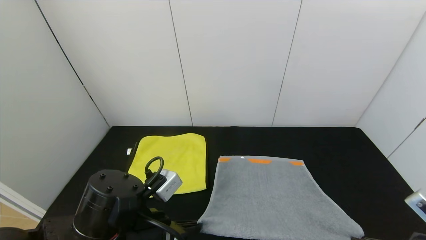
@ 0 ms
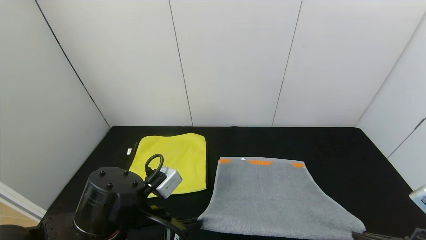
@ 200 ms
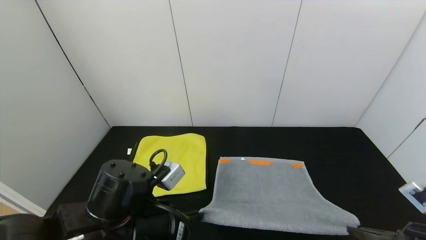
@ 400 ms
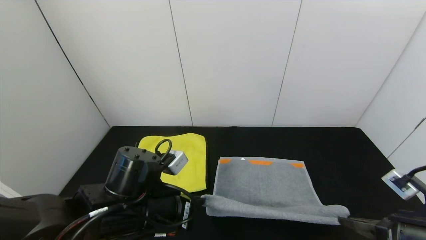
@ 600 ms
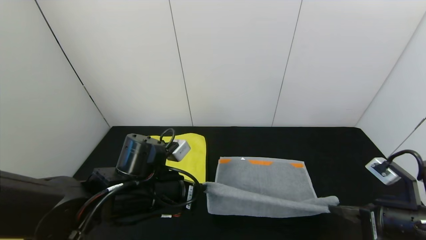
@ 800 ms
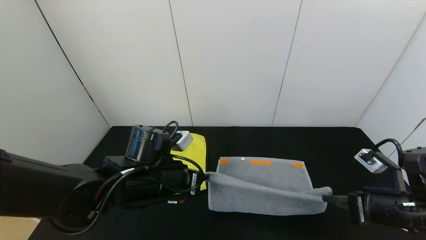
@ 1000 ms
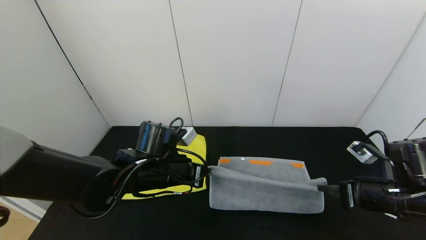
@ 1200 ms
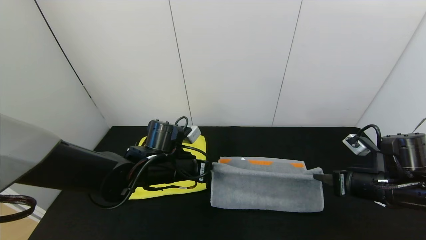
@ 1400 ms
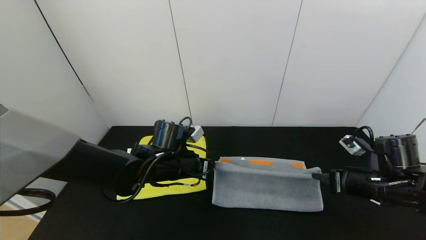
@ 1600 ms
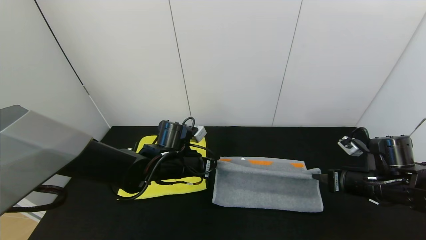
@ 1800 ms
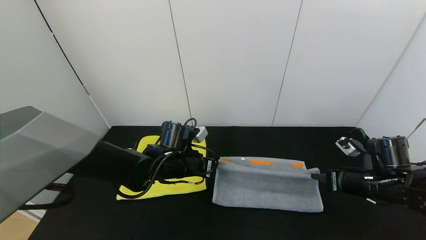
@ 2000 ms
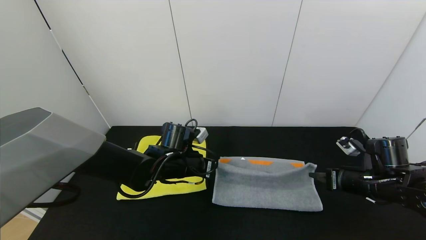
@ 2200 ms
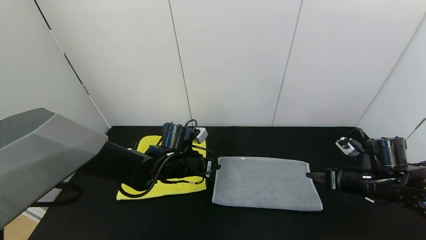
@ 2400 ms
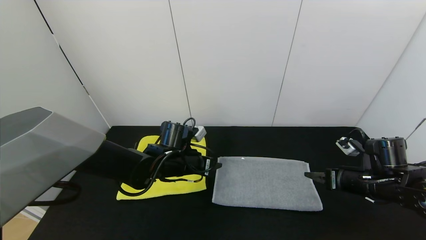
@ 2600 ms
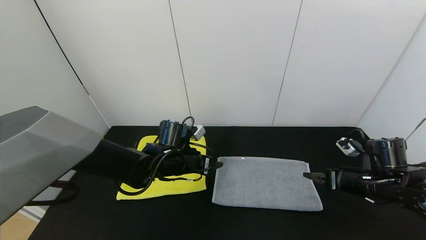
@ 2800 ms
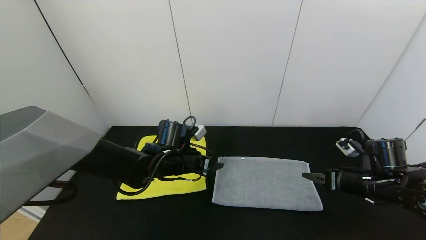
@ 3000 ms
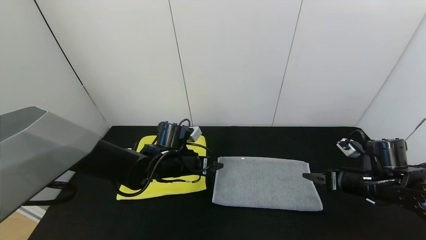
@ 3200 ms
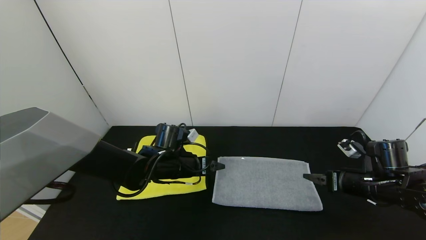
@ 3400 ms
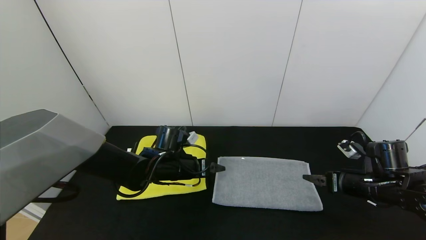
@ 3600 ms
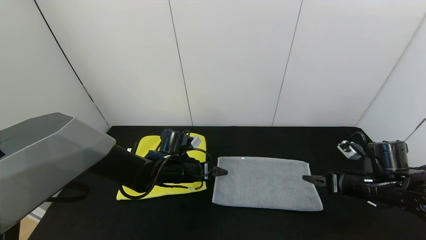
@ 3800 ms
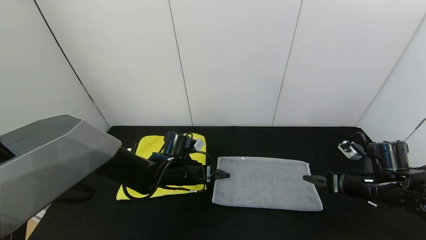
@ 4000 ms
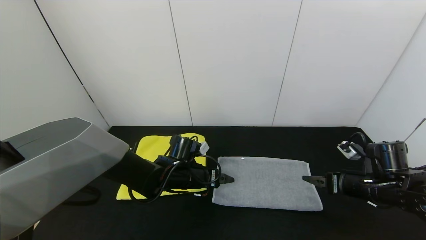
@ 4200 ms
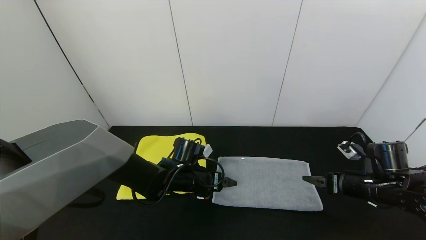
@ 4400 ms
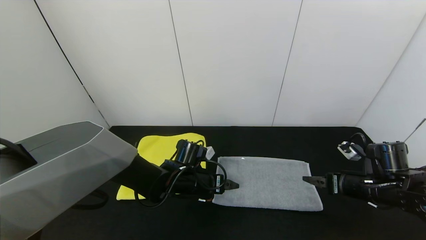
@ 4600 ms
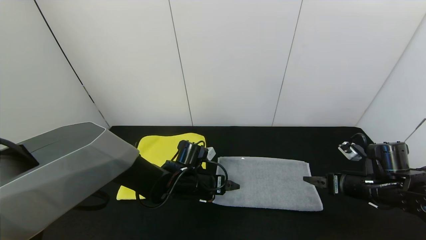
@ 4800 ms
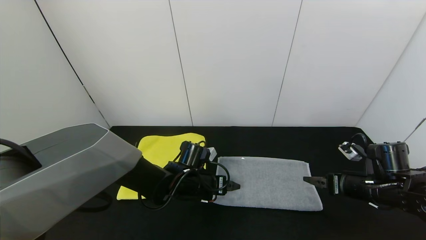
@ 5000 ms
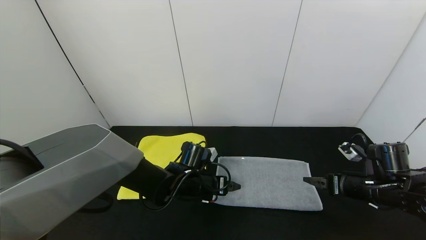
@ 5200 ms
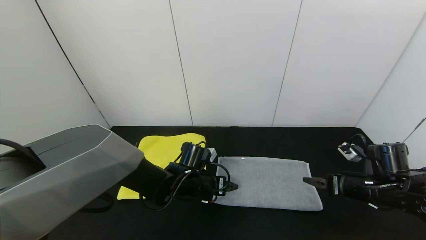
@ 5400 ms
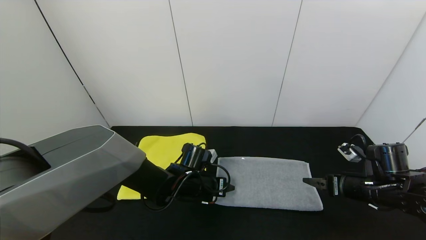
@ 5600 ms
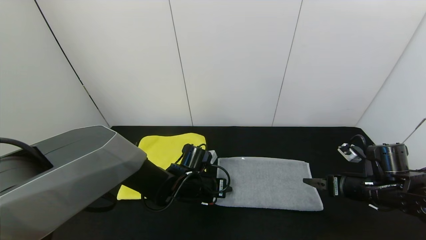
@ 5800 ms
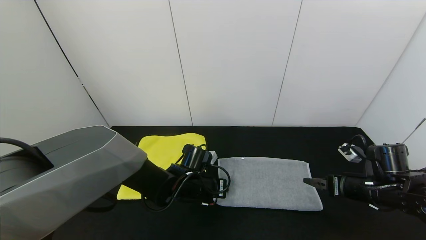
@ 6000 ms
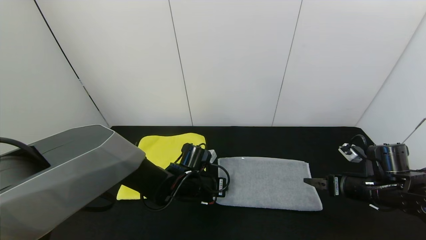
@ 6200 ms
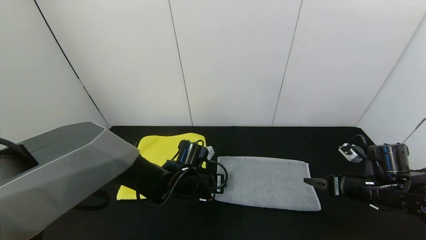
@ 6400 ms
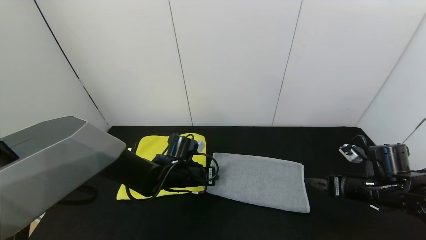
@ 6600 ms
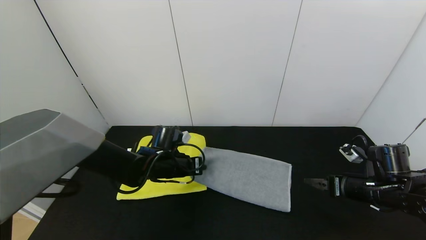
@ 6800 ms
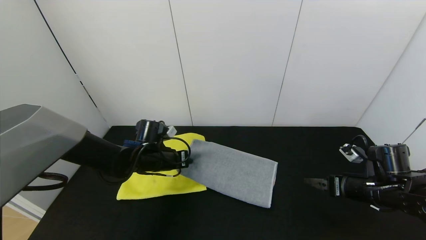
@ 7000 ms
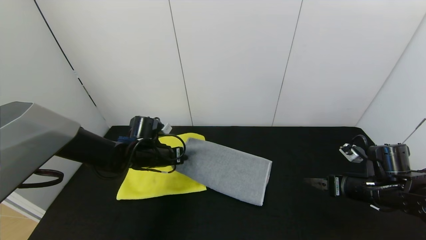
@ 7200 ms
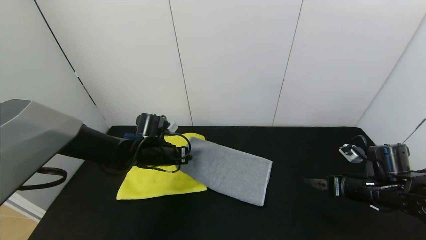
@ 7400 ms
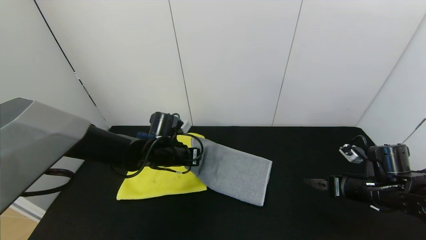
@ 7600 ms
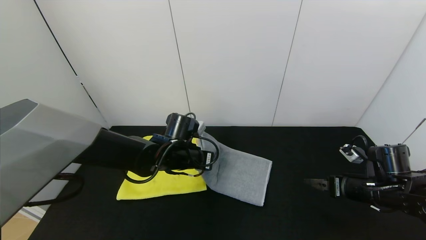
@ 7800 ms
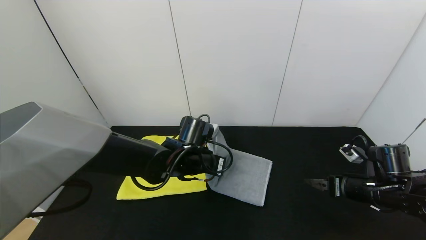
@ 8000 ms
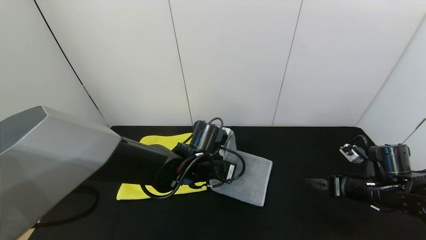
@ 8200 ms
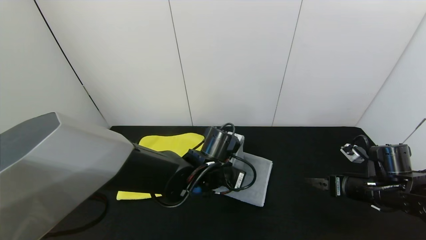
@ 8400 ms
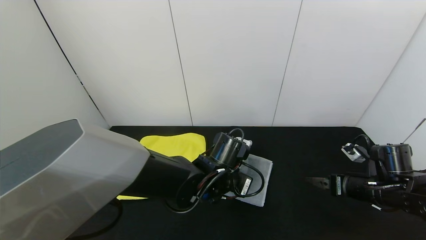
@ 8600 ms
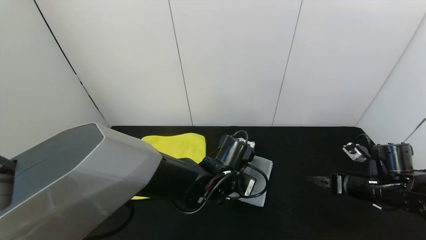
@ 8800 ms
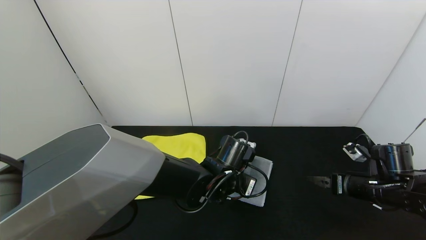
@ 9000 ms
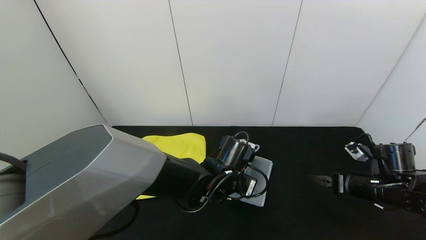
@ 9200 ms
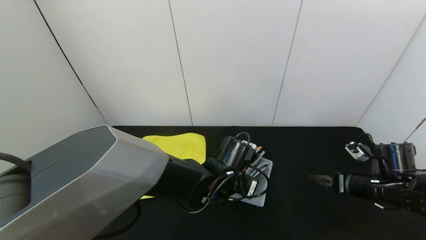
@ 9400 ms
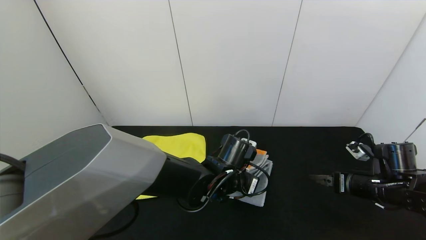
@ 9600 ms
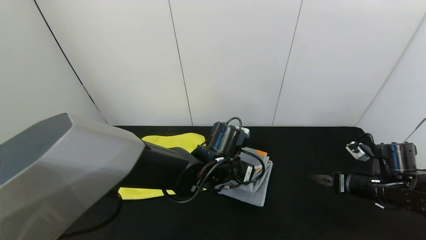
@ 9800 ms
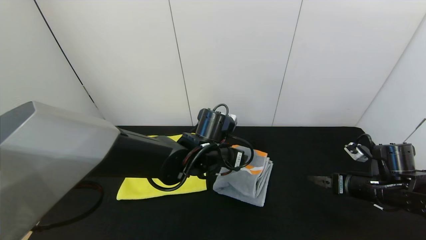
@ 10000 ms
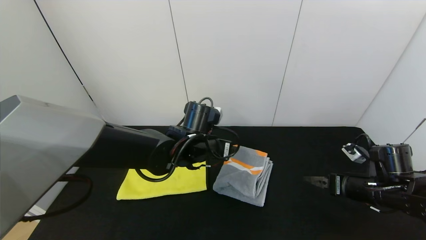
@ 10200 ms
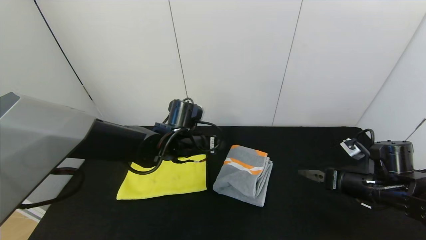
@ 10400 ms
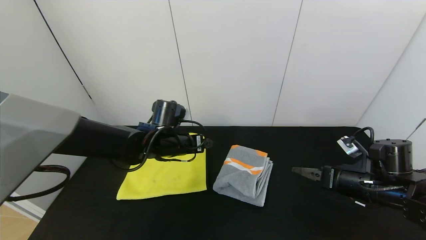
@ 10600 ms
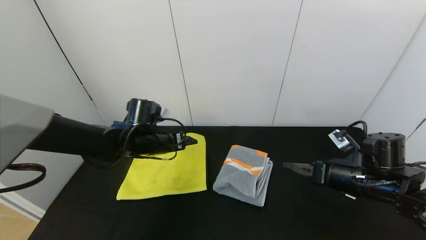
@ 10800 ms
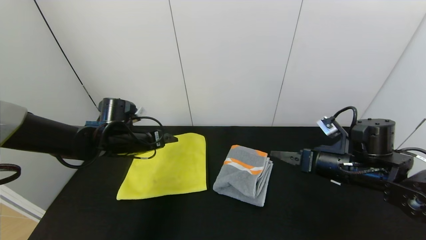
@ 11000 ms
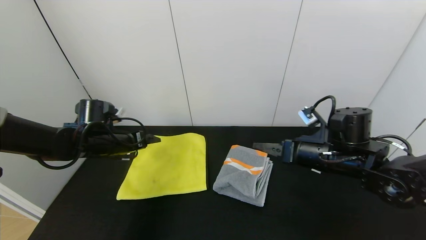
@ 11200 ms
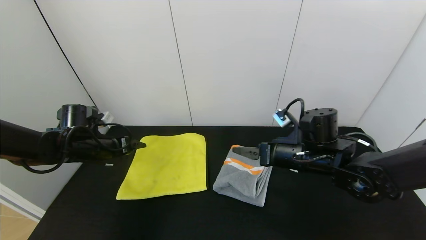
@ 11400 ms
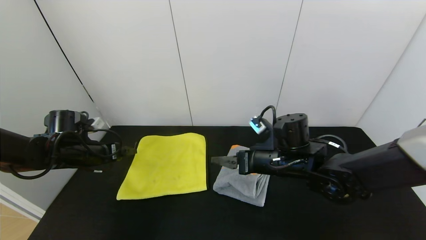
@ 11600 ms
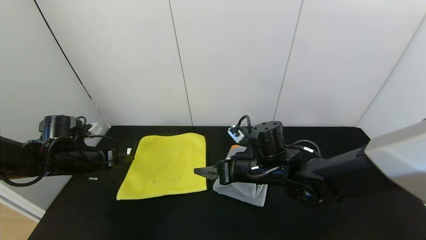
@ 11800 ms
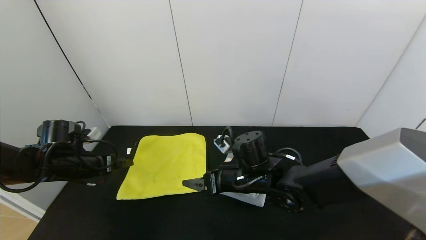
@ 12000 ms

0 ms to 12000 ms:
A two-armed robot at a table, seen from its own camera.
Task of the whole recording: Use the gripper to fold the yellow towel and grey towel in half twice,then put the yellow towel on the grey towel.
Step, 0 ms to 2400 ms: Fold the gray towel upwards with the left gripper.
Step, 0 ms to 2400 ms: Fold the gray towel upwards with the right gripper.
Step, 2600 ms to 9800 ms: Fold the gray towel from left to right with left gripper.
0 ms to 1600 ms: Both grippers move forward, some 15 cm.
1600 ms to 3000 ms: The left gripper opens up, while the right gripper opens up.
3000 ms to 4400 ms: The left gripper changes place by some 5 cm.
4400 ms to 6000 ms: The left gripper closes its fingers.
6000 ms to 7600 ms: The left gripper shifts some 10 cm upward and to the left.
7600 ms to 9000 ms: The left gripper is displaced to the right and backward by some 15 cm.
9000 ms to 10400 ms: The left gripper travels to the left, upward and forward by about 15 cm, and opens its fingers.
10400 ms to 12000 ms: Both grippers move to the left, about 25 cm.

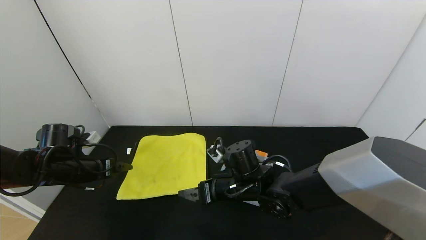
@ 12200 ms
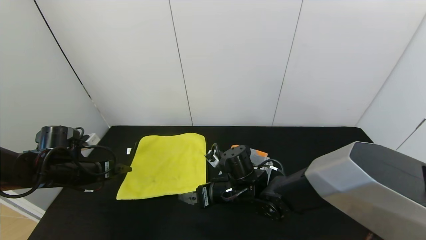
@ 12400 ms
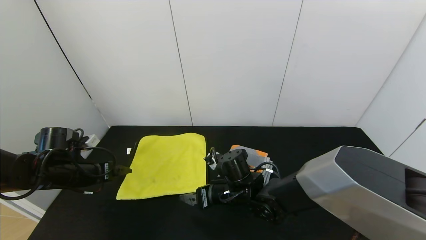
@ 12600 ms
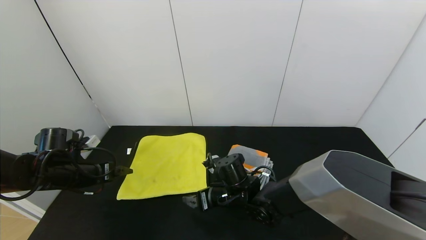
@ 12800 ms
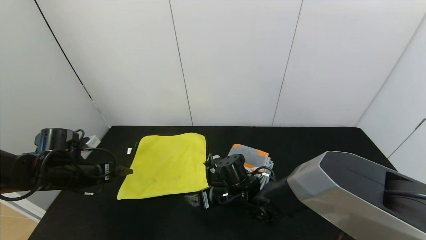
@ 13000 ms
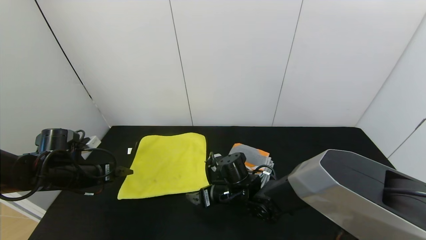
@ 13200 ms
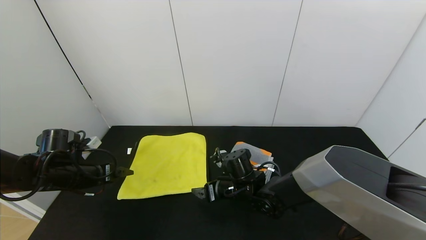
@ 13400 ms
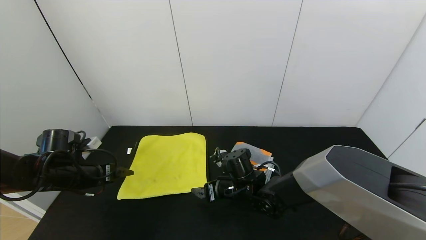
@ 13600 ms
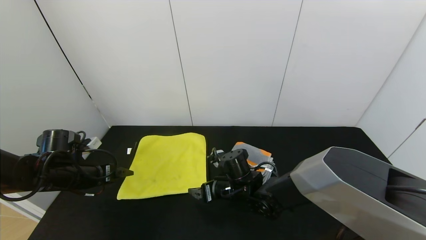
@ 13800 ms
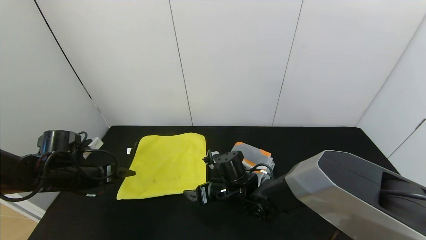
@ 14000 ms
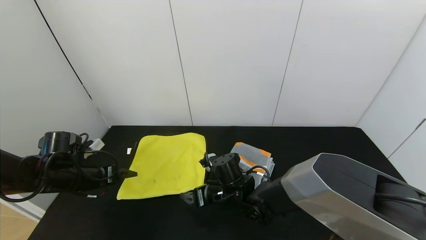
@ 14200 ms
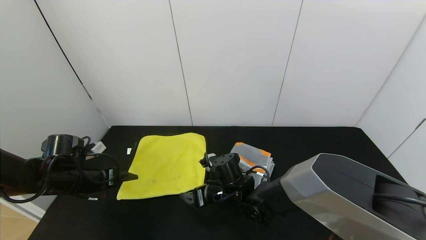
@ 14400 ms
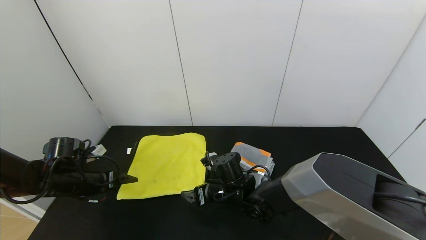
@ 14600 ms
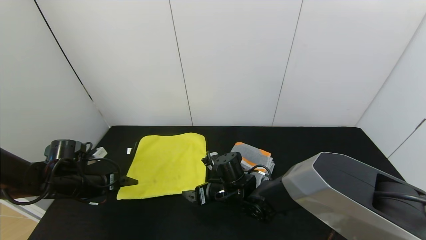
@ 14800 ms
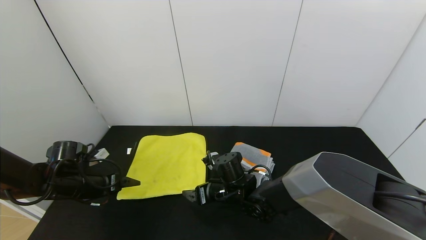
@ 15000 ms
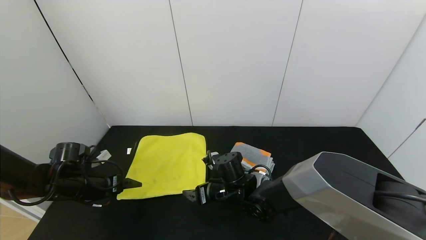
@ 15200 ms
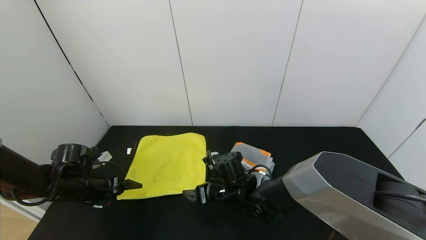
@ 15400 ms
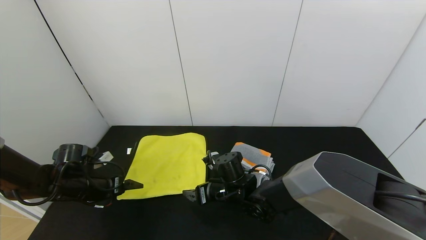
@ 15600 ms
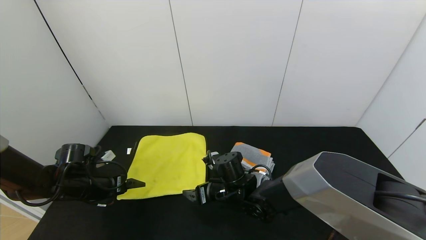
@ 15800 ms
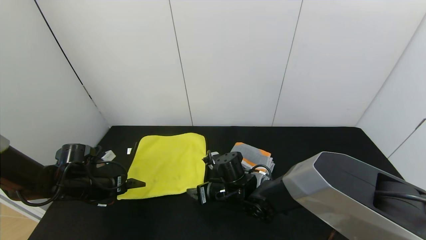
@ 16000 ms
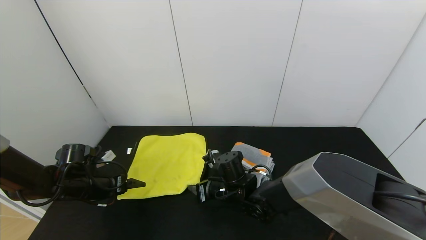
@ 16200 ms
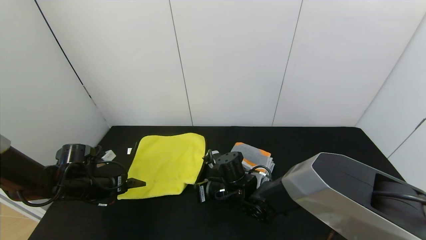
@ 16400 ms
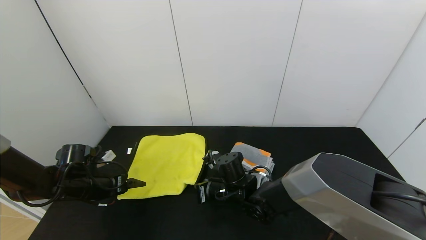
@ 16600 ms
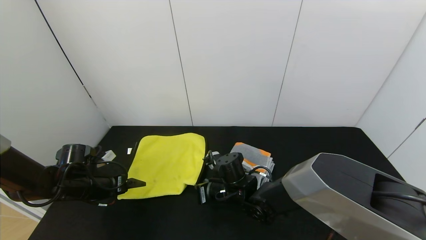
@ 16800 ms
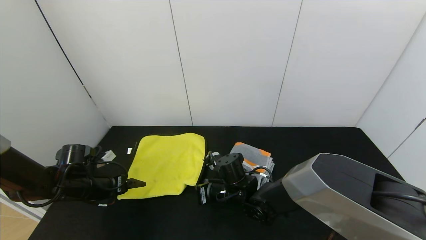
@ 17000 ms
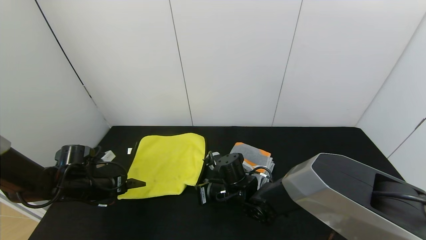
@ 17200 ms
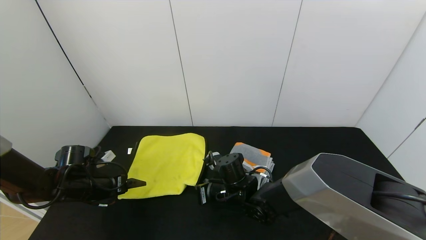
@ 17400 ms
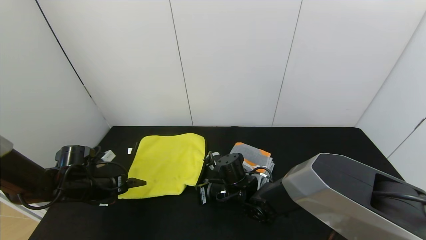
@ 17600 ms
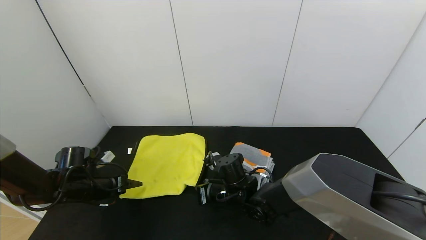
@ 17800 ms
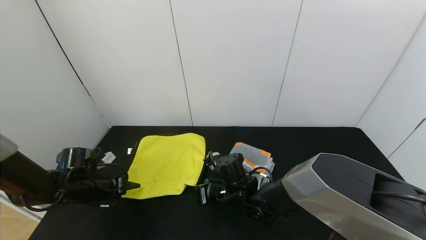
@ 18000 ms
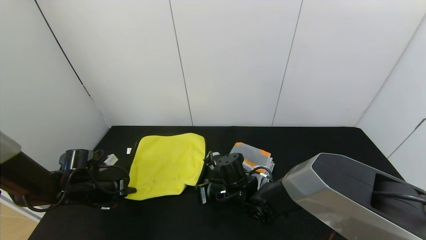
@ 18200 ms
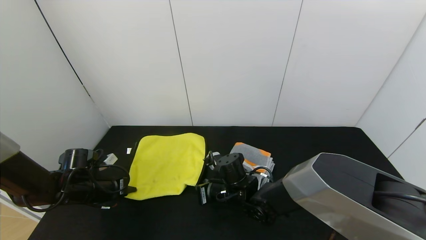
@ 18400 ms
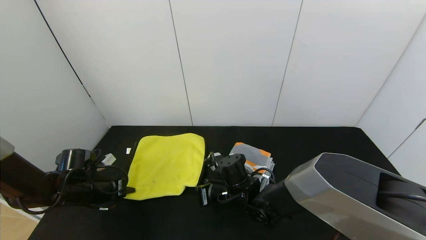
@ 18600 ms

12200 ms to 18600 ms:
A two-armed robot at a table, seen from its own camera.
Task of the whole recording: Use the gripper to fold the yellow towel and grey towel in half twice,then put the yellow towel on the grey towel.
12200 ms to 13800 ms: The right gripper moves some 5 cm.
13800 ms to 15400 ms: The grippers stay close to where they were, moving slightly.
15400 ms to 17000 ms: The right gripper closes up.
17000 ms to 18600 ms: The left gripper closes up.
